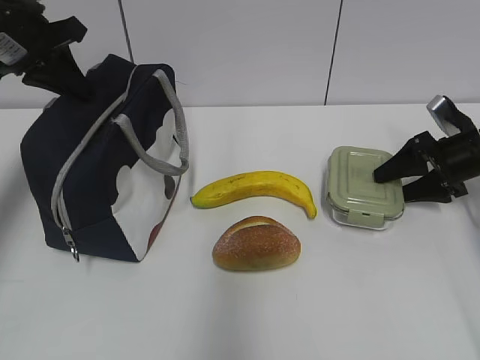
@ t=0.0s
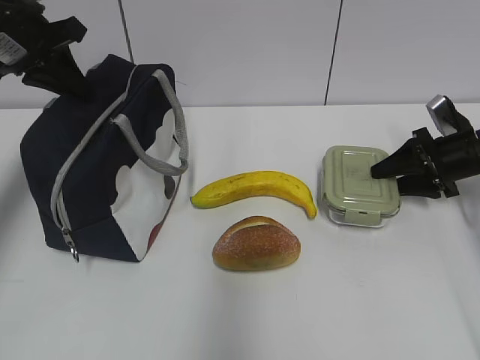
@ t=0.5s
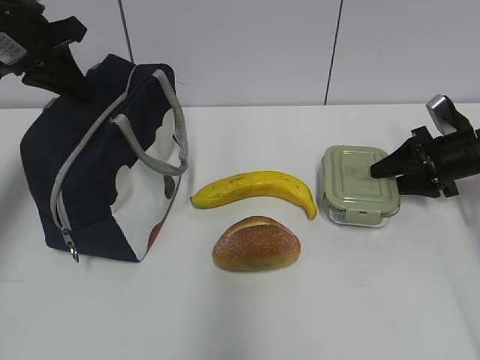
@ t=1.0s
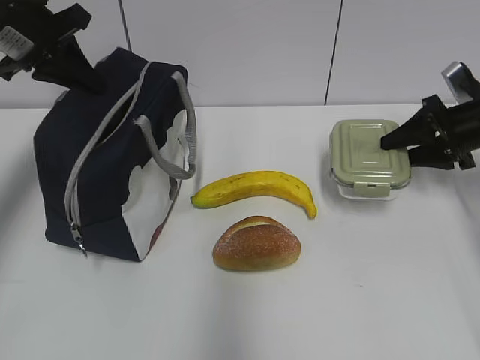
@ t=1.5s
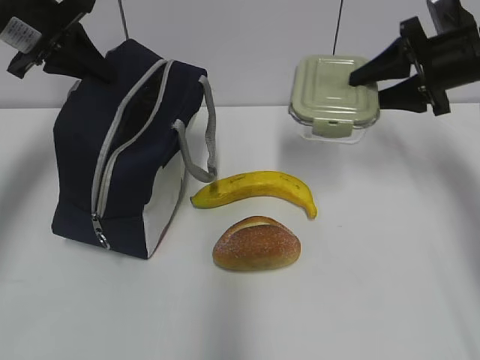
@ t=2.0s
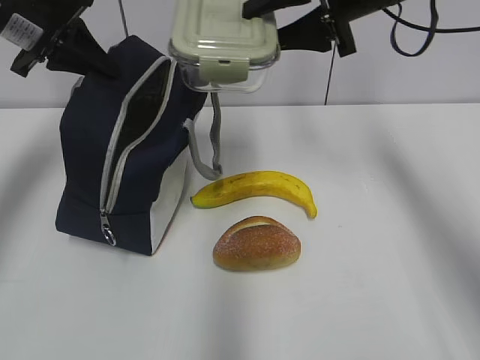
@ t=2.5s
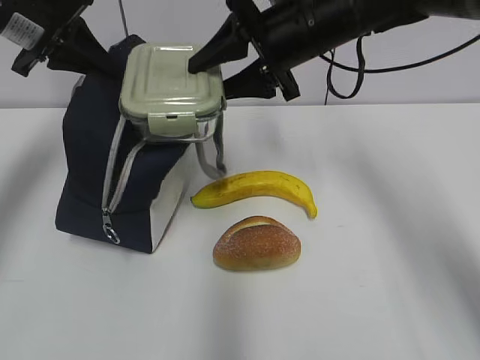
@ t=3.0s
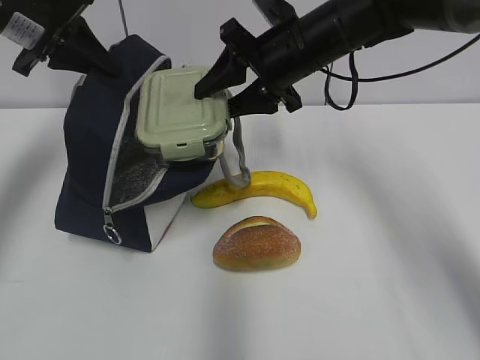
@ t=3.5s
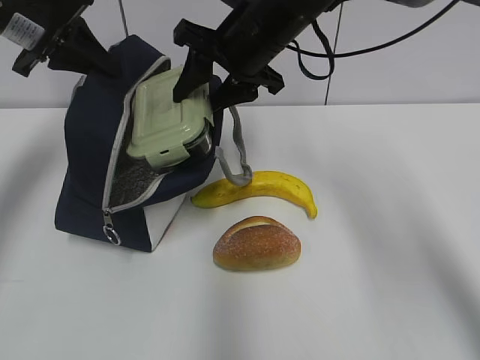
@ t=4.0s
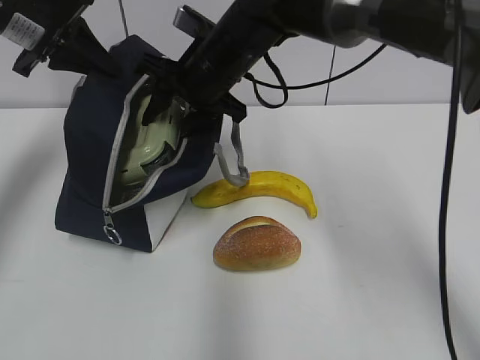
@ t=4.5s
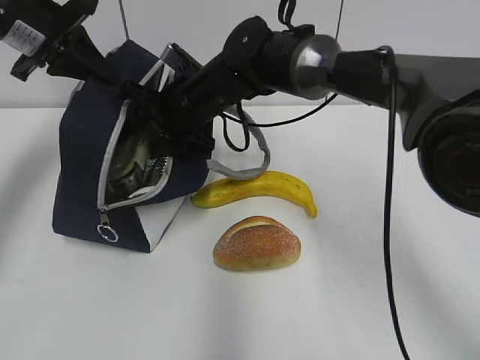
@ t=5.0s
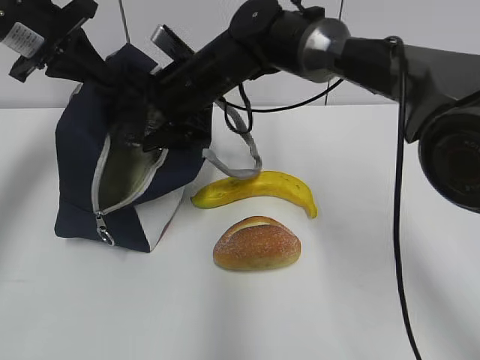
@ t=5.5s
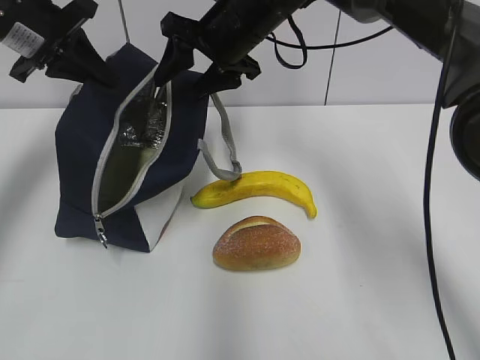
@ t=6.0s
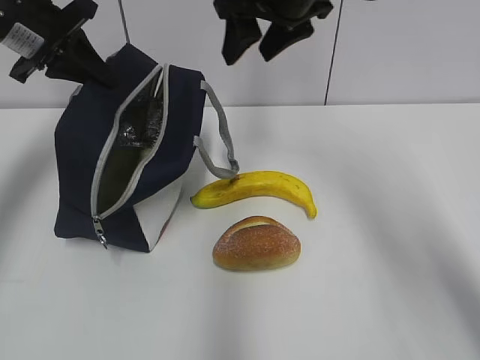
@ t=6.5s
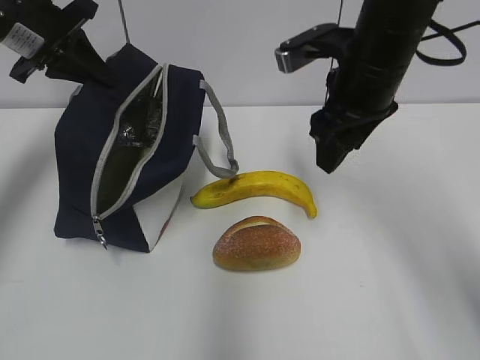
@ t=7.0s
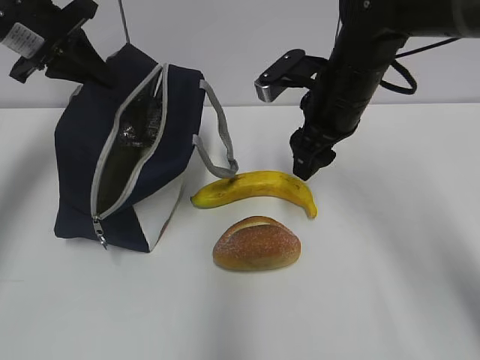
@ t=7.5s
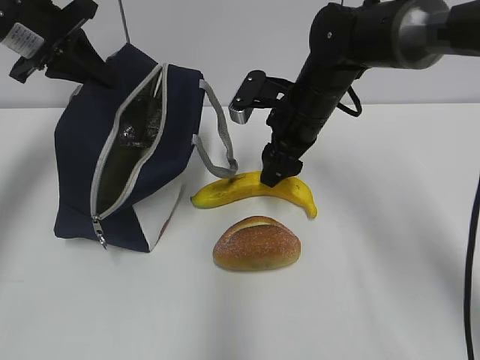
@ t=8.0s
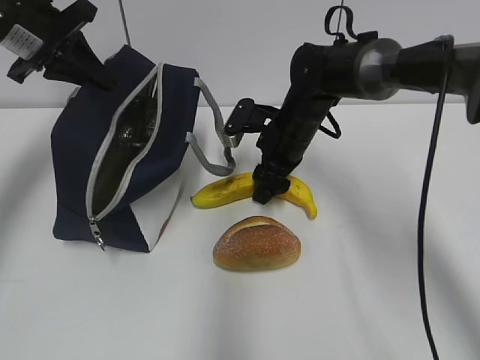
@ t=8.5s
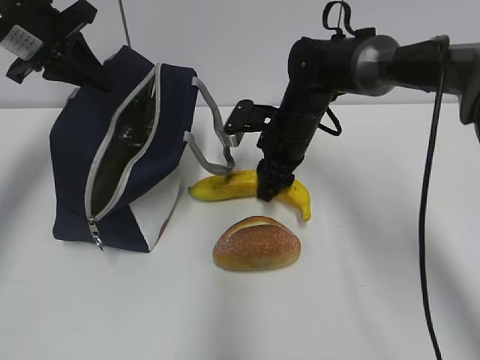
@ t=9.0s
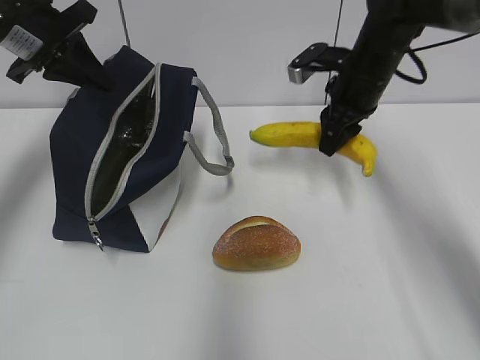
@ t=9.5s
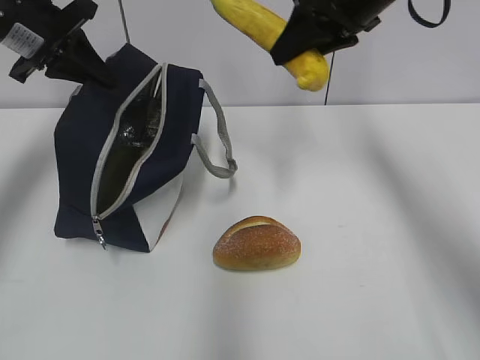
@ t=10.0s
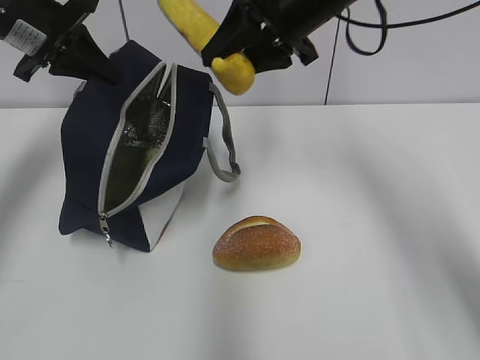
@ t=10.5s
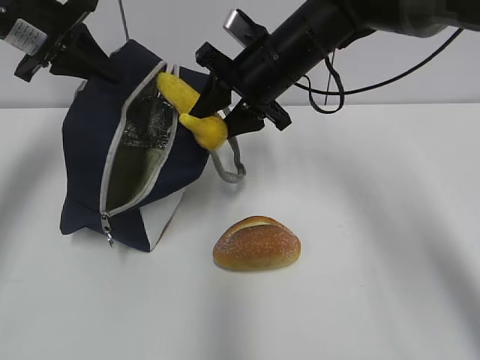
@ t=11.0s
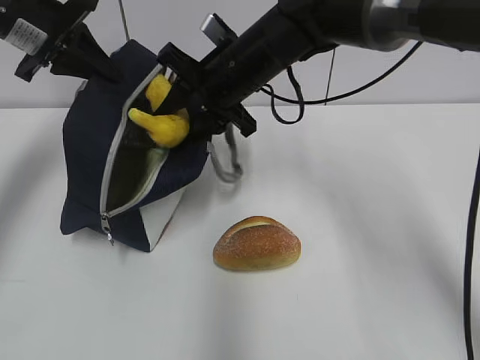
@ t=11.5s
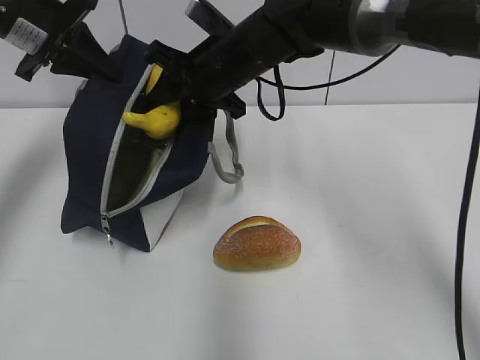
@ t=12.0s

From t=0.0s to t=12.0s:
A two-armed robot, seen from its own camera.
From t=0.0s to t=2.0s: The right gripper moves upward and to the left, roughly 15 cm.
From t=2.0s to t=4.0s: The right gripper travels to the left by some 25 cm.
From t=4.0s to t=6.0s: The right gripper travels downward and back again, approximately 10 cm each way.
From t=6.0s to t=8.0s: The right gripper travels downward and to the right by some 10 cm.
From t=8.0s to t=10.0s: The right gripper goes some 15 cm upward.
From t=10.0s to t=12.0s: The right gripper heads to the left and downward, covering roughly 15 cm.

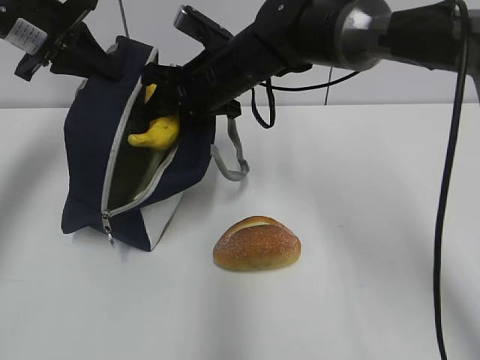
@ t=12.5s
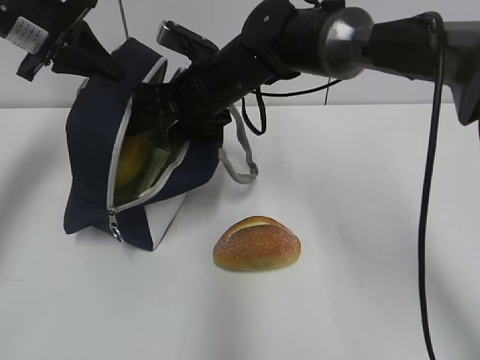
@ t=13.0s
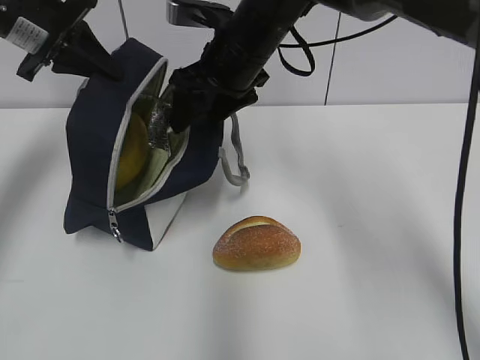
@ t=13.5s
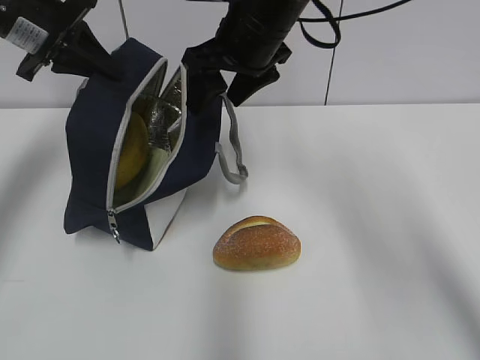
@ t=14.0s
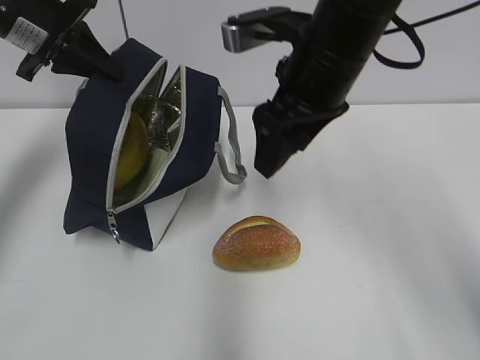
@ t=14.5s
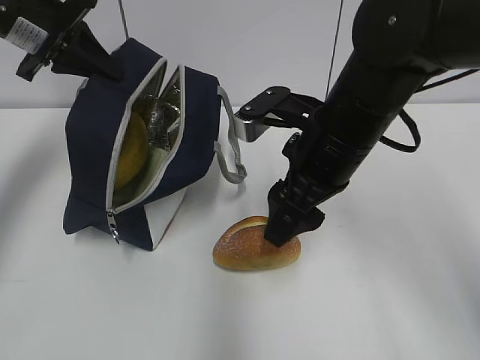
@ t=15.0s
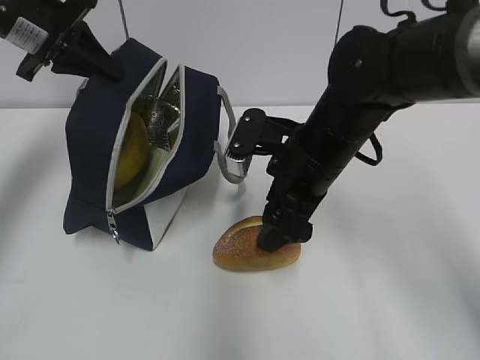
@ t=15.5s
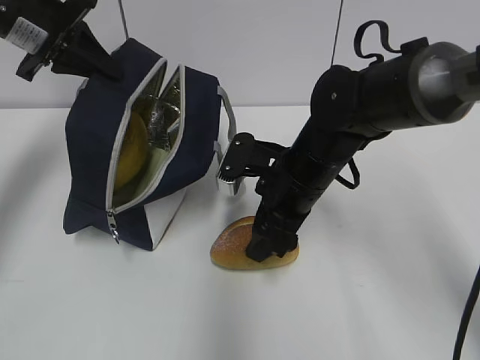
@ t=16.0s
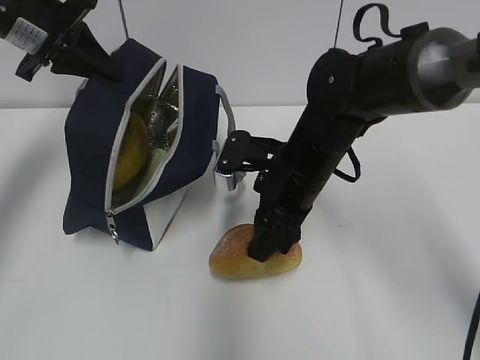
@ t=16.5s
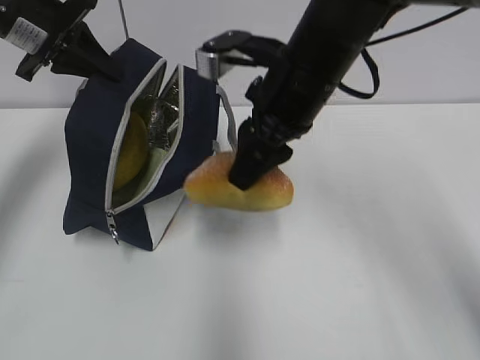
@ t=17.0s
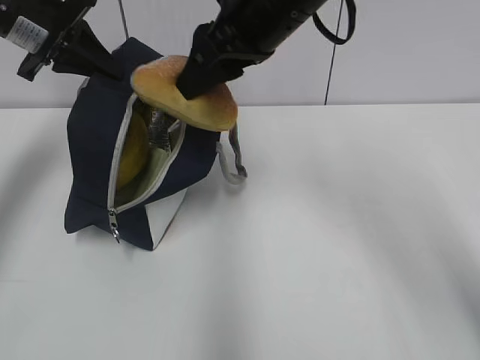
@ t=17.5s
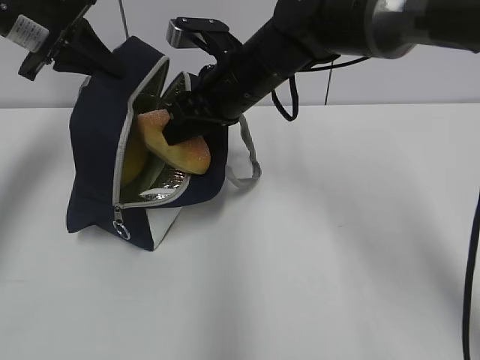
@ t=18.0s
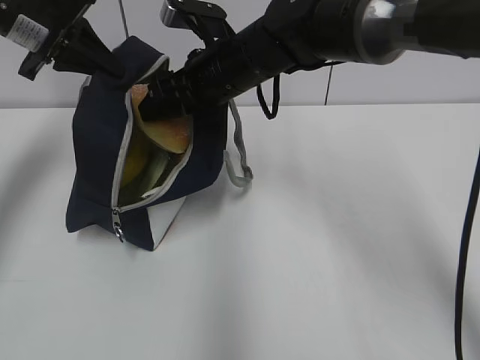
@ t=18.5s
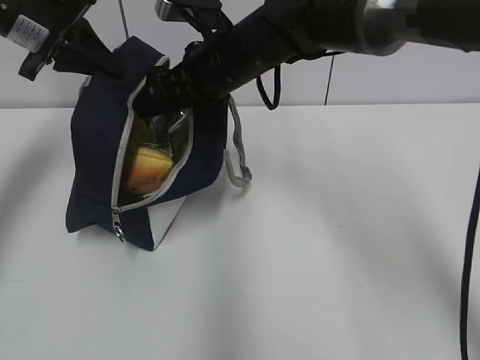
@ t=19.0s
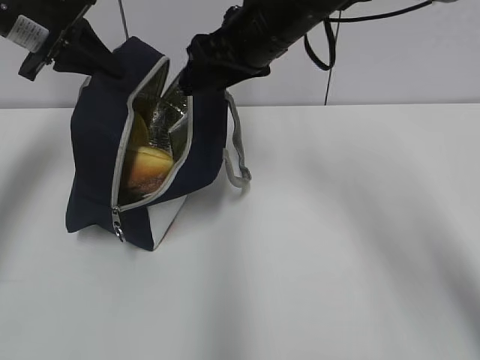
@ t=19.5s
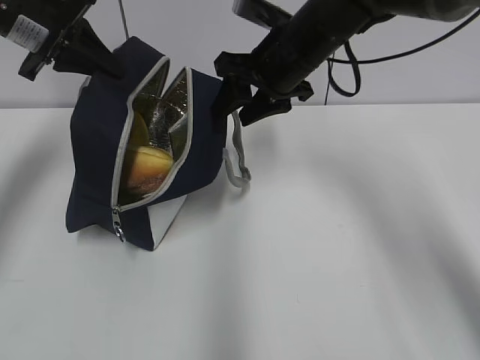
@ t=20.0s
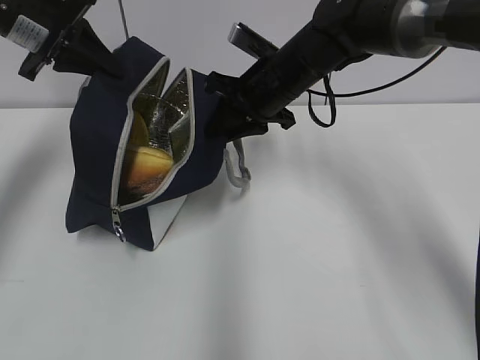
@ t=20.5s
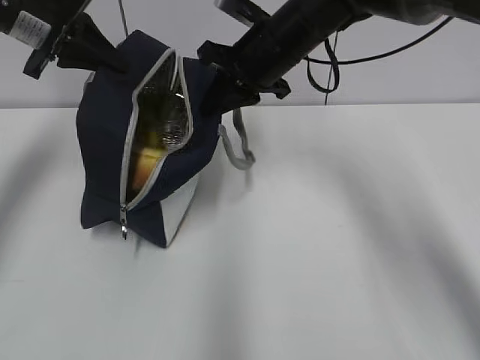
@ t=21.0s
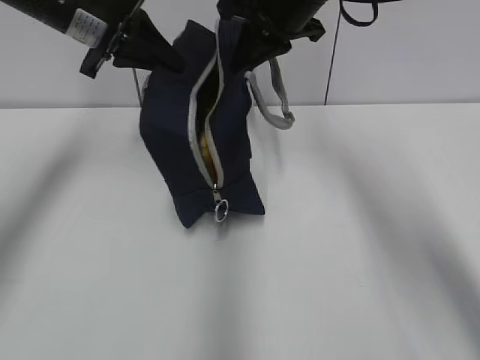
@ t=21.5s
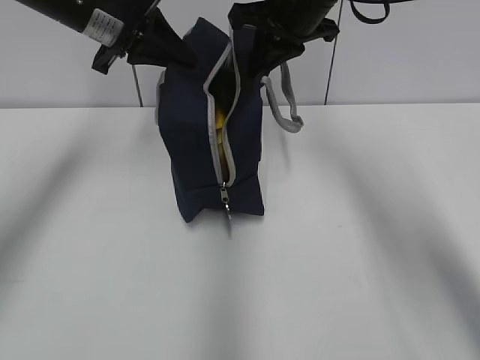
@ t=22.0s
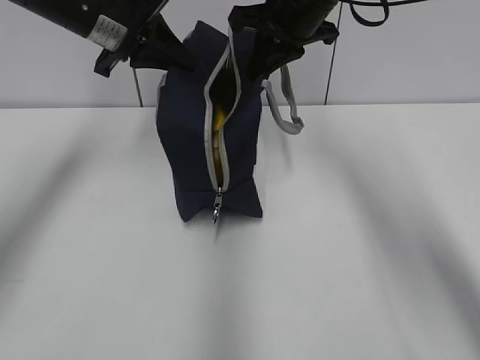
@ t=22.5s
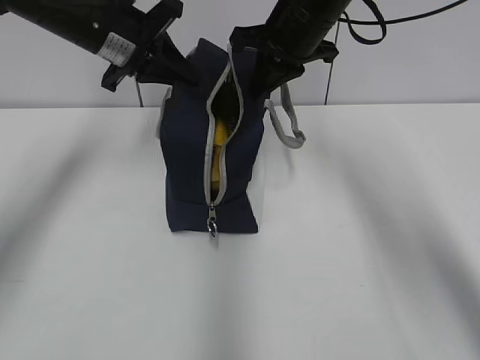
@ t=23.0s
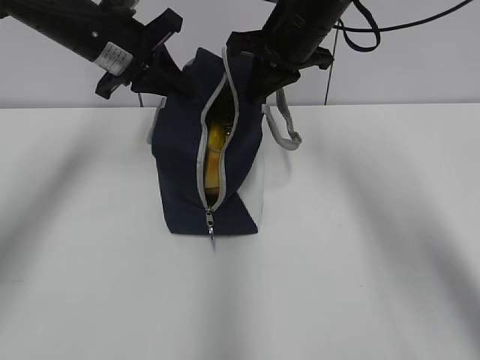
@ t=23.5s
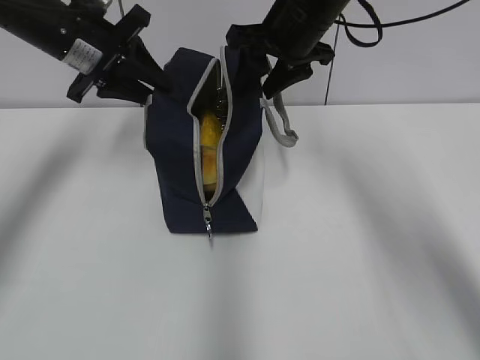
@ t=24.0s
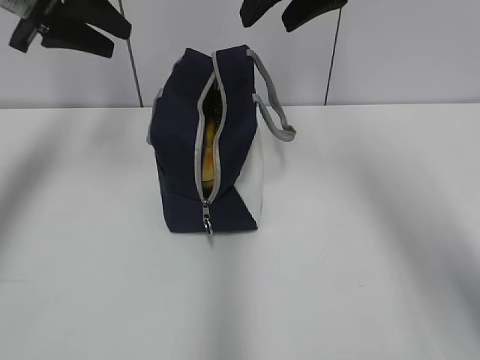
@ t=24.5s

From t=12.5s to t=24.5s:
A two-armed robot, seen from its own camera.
From t=12.5s to t=14.5s: The right gripper goes roughly 15 cm backward, to the right and upward, and opens up.
From t=14.5s to t=16.5s: The right gripper shifts roughly 15 cm downward, and closes up.
From t=16.5s to t=18.5s: The right gripper travels forward, upward and to the left by approximately 15 cm.
From t=18.5s to t=20.5s: The right gripper is displaced to the right by some 5 cm, and closes.
From t=20.5s to t=22.5s: The right gripper heads upward, covering some 10 cm, and closes, while the left gripper travels to the right by about 10 cm.
From t=22.5s to t=24.5s: The left gripper shifts about 5 cm to the left, and opens. The right gripper shifts about 5 cm upward, and opens its fingers.

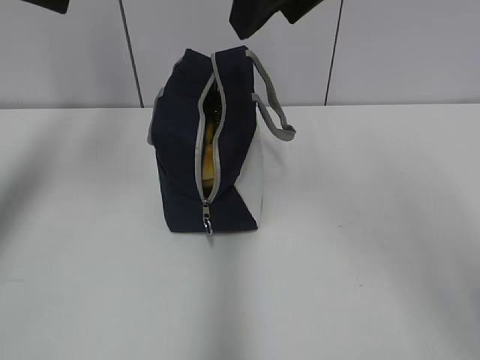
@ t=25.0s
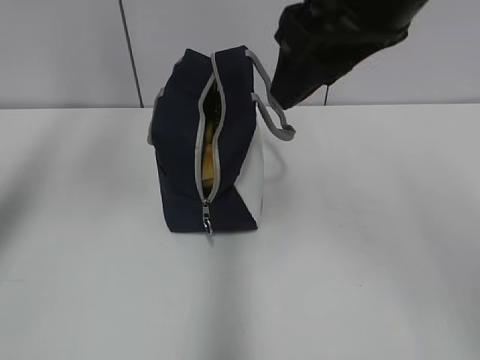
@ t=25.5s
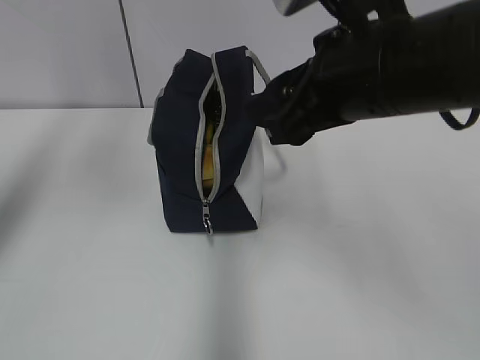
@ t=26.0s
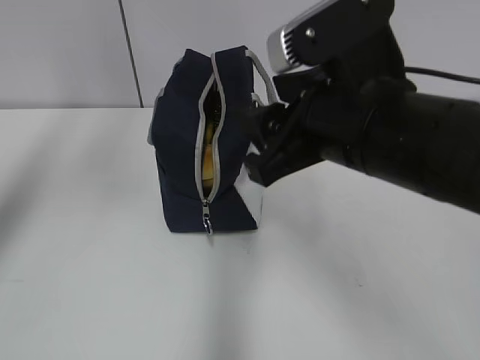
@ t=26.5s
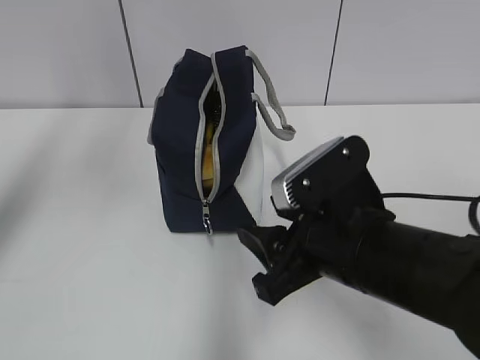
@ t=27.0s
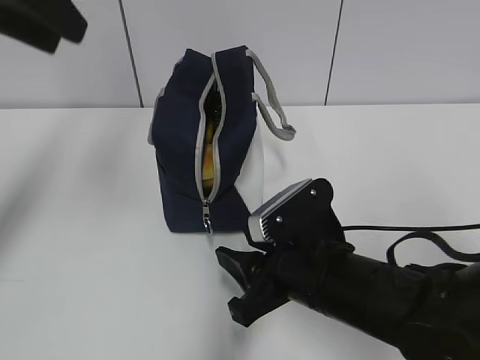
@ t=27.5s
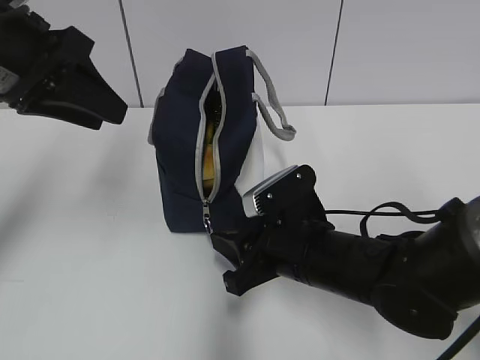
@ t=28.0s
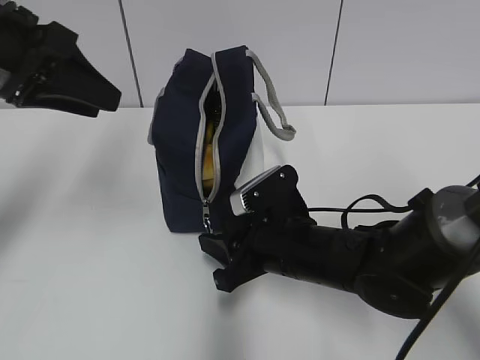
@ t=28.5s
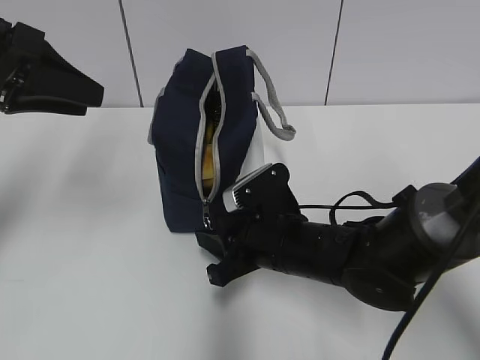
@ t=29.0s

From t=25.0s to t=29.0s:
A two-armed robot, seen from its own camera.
From t=25.0s to t=27.0s: The right gripper is displaced downward by approximately 25 cm, while the left gripper is displaced backward by about 5 cm.
From t=27.0s to t=29.0s: The right gripper travels downward and forward by some 10 cm. The left gripper heads downward, covering about 15 cm.
